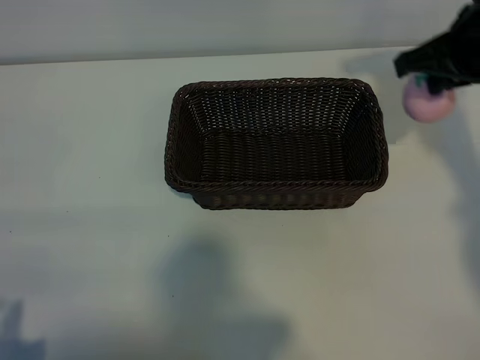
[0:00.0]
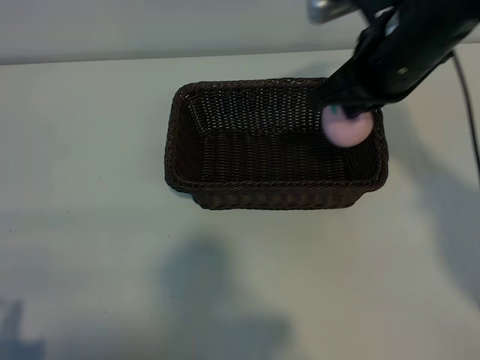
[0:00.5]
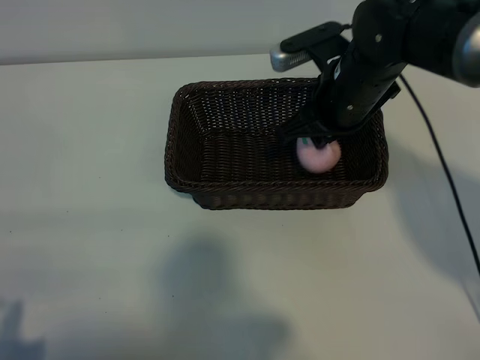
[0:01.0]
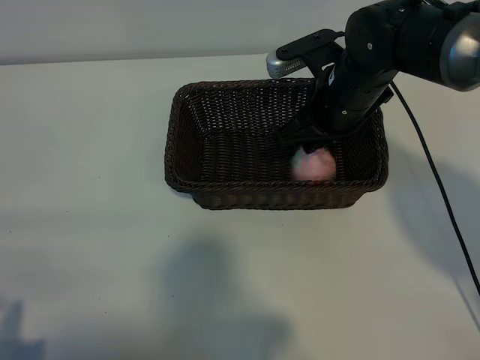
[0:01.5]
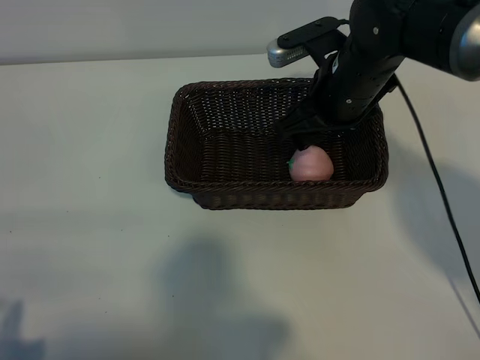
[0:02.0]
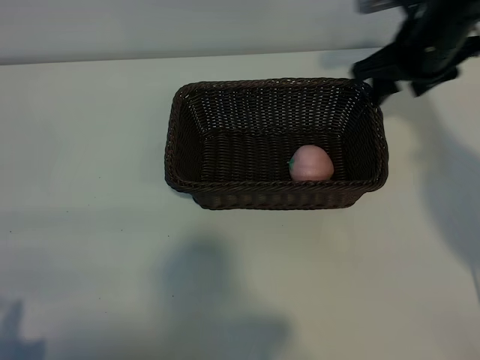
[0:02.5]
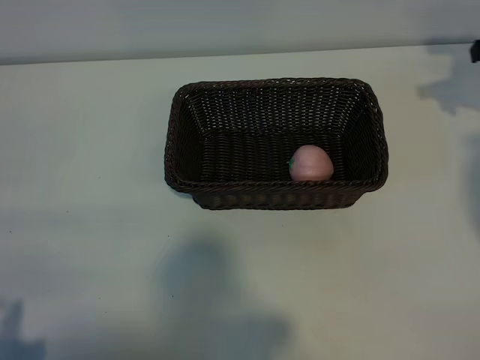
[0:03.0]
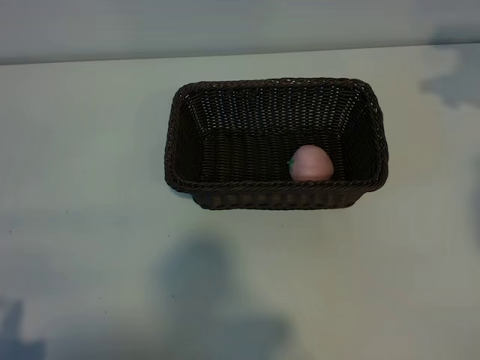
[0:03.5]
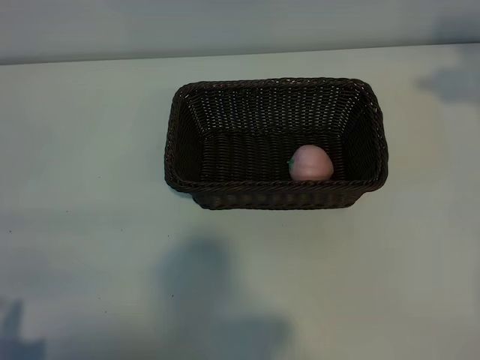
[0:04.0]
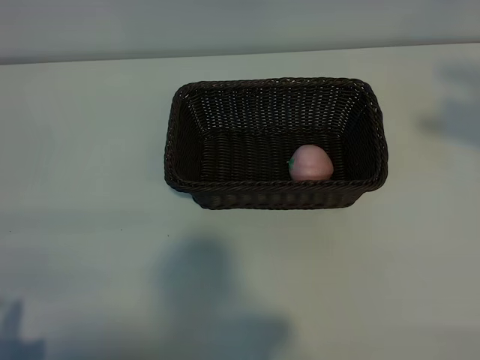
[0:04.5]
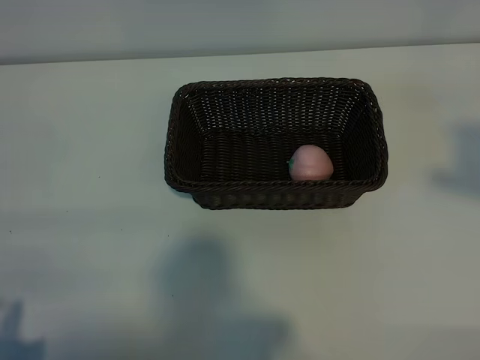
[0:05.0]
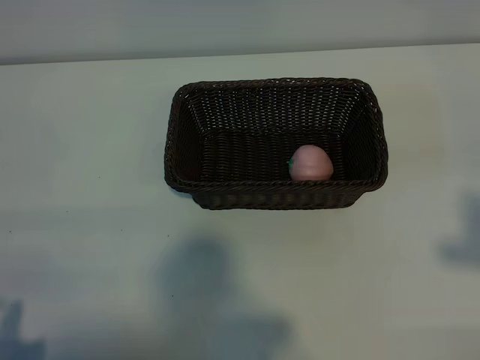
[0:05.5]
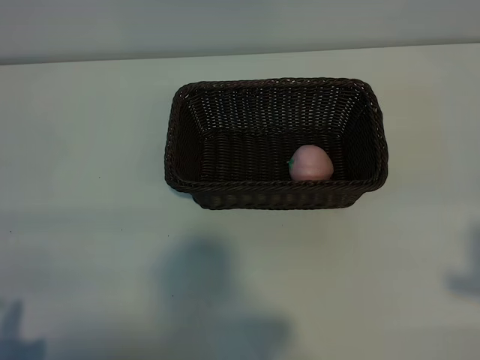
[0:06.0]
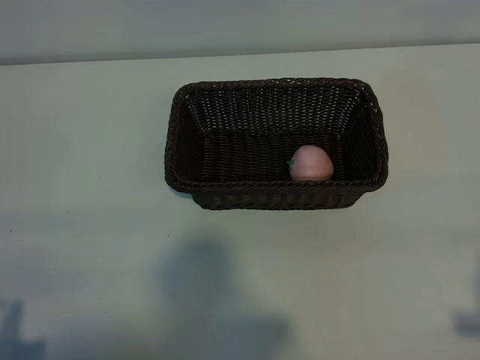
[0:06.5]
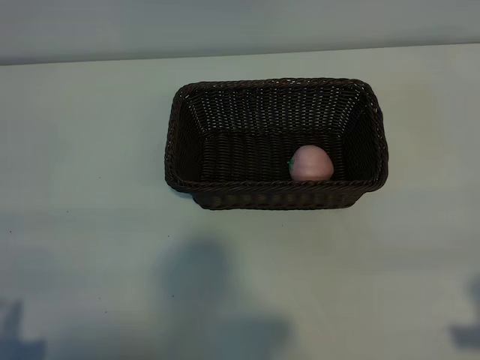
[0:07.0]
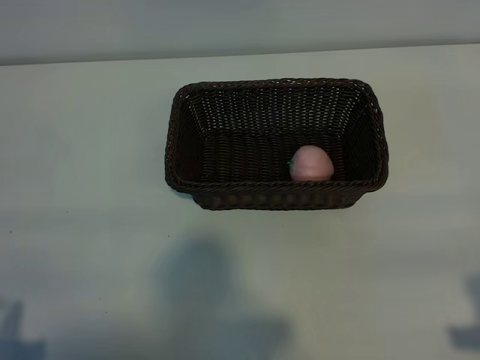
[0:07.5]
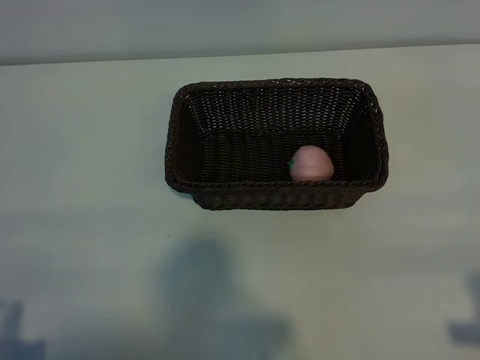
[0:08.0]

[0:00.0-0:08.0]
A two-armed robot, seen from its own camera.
Task of the whole recording: pick up the peach and put it into the basket.
Step, 0:00.0 to 0:02.0: Place the peach in the basket with right gripper.
